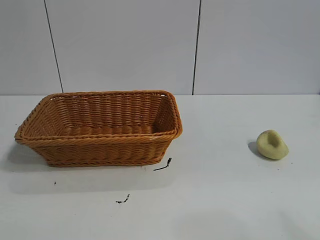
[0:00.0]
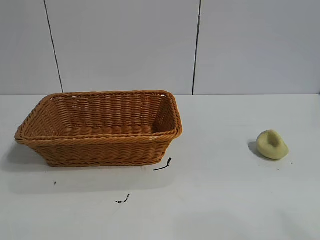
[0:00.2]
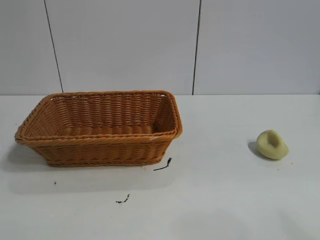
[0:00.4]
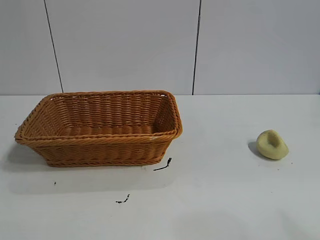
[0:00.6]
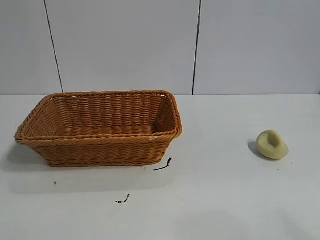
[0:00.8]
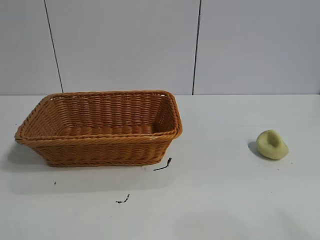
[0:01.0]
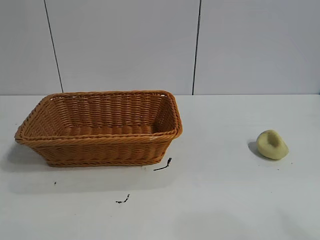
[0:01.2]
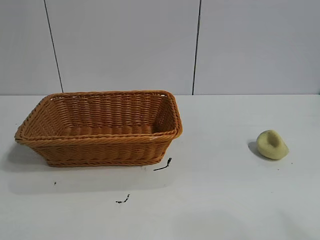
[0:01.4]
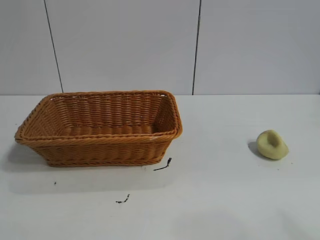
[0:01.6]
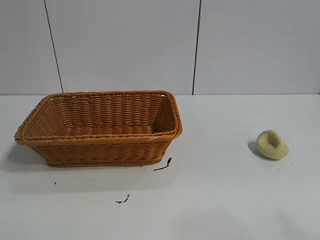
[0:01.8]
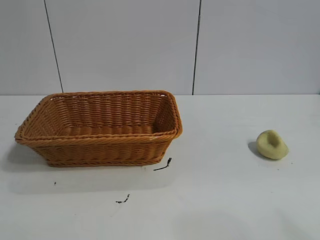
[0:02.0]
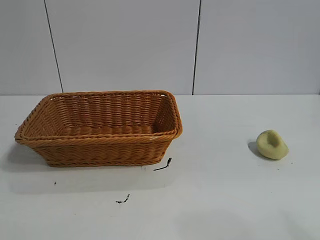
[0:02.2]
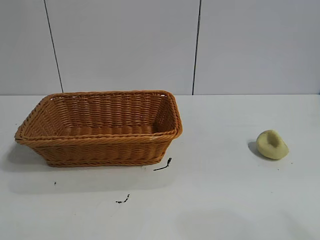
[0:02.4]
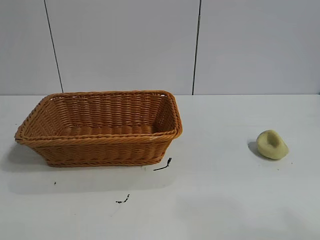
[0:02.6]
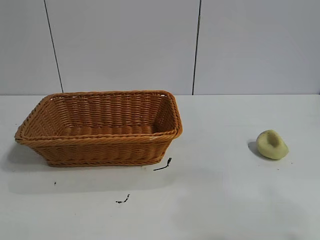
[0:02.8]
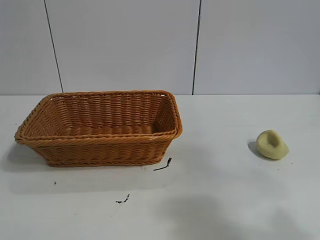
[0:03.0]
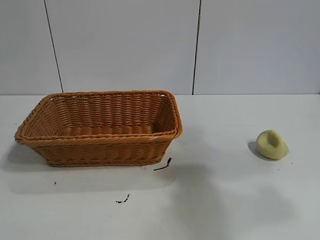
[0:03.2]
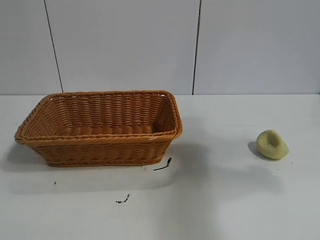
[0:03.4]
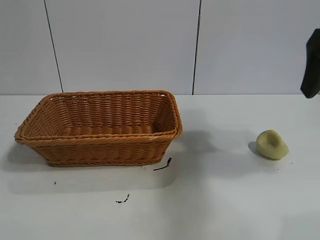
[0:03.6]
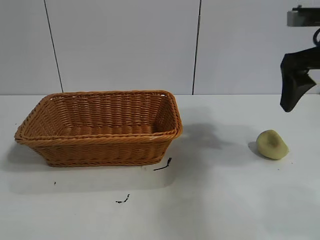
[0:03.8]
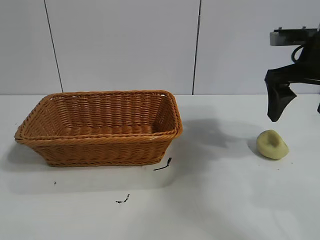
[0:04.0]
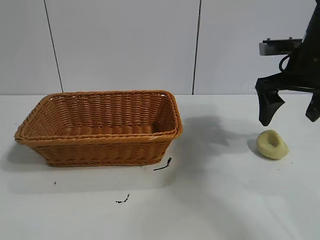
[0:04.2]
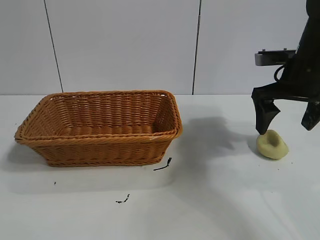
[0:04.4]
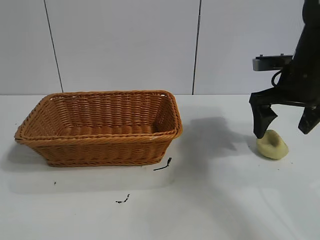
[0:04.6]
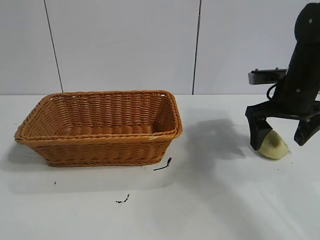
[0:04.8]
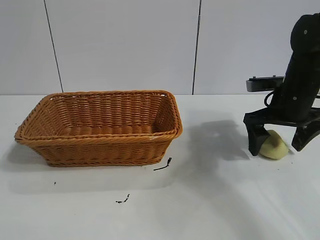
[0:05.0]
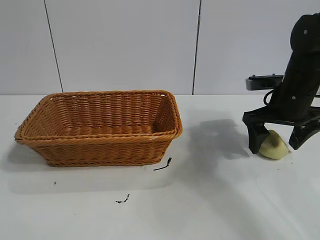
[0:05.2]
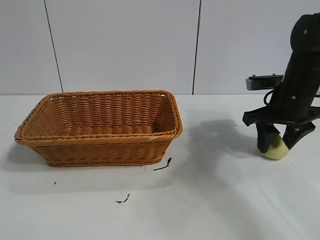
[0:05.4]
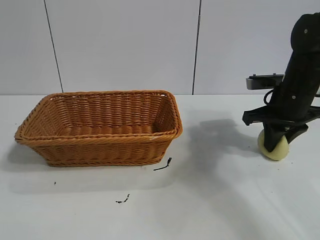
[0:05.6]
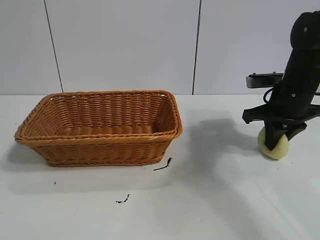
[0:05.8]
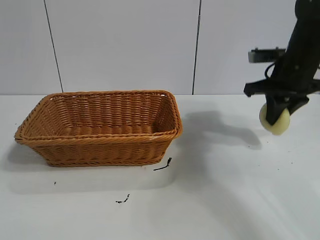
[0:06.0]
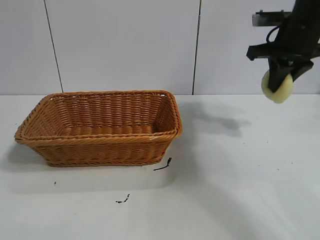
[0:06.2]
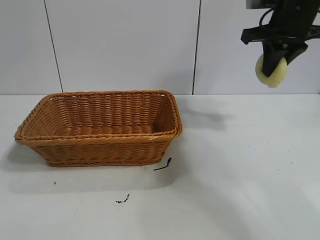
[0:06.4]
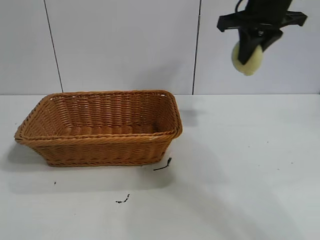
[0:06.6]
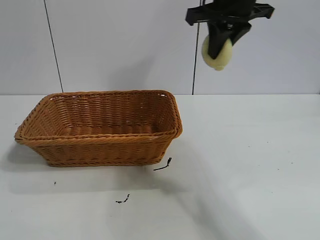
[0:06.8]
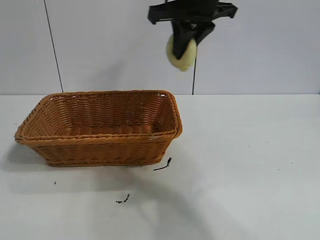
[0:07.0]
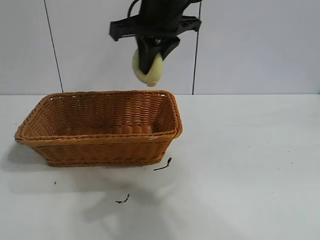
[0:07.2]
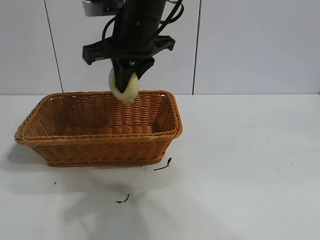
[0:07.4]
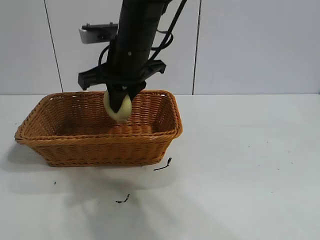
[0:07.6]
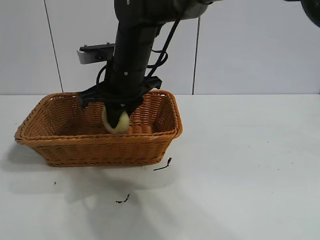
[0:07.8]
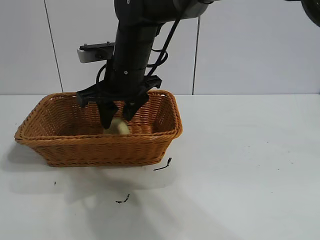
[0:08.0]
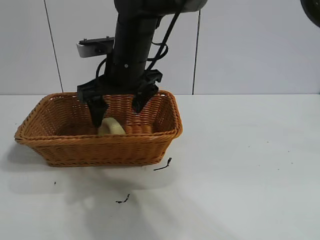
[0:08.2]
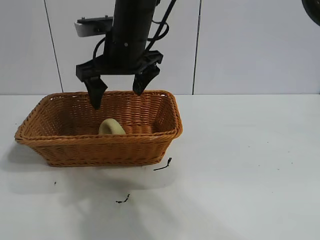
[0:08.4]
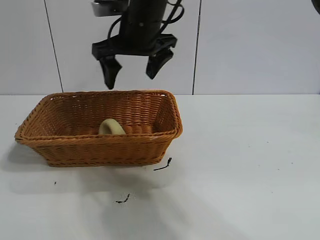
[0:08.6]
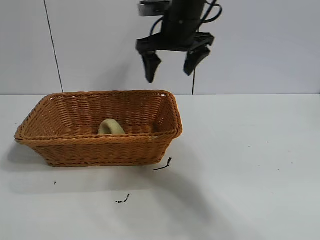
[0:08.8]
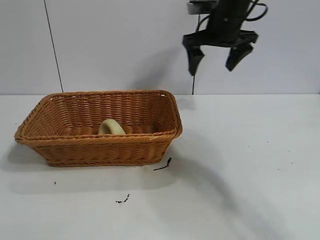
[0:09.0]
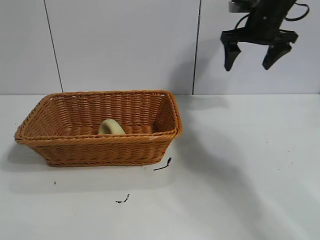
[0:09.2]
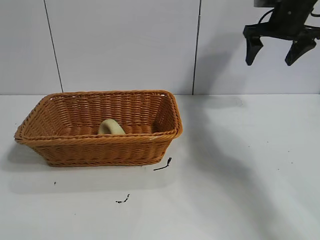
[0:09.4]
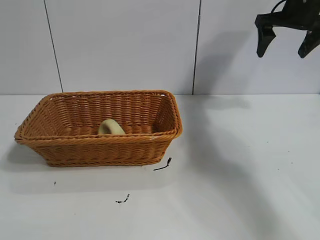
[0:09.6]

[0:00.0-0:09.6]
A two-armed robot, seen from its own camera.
Task of the whole recording: pick up the egg yolk pastry and put it into the basket.
Step, 0:01.8 to 0:05.6: Grasp egg yolk pastry with right gripper.
Step, 0:05.8 to 0:08.0: Place the egg yolk pastry in the basket with right gripper.
